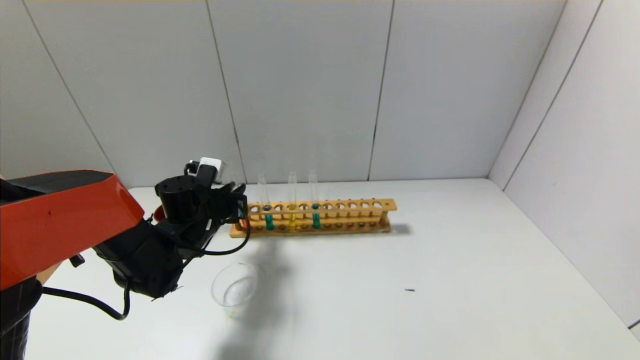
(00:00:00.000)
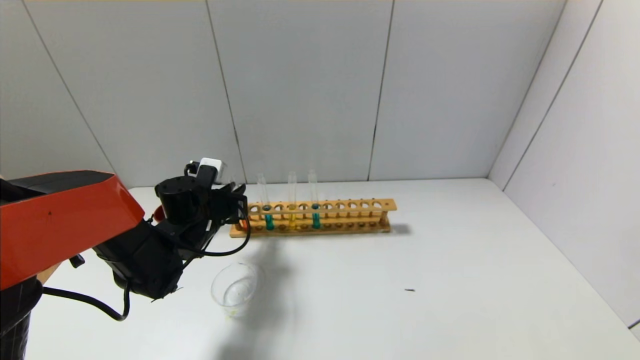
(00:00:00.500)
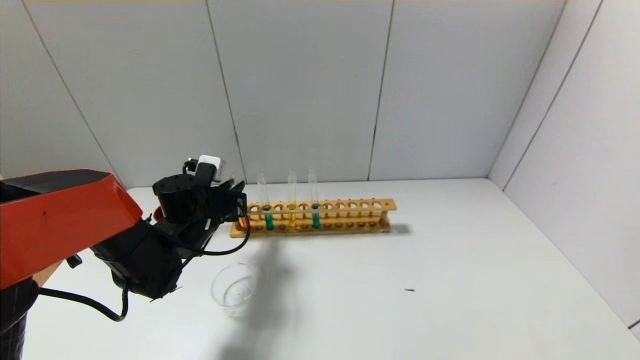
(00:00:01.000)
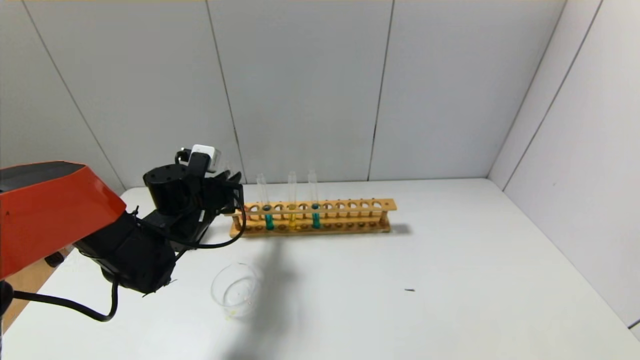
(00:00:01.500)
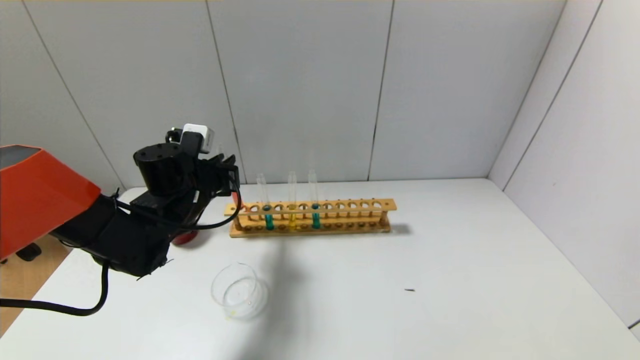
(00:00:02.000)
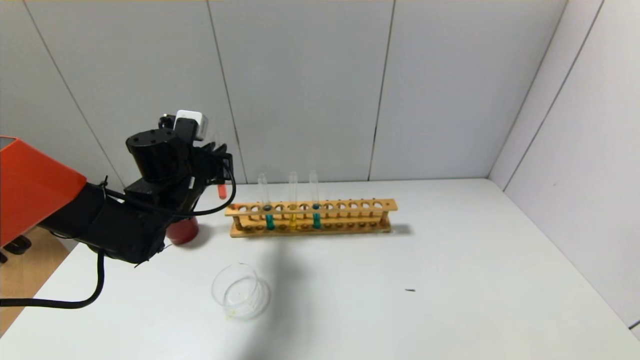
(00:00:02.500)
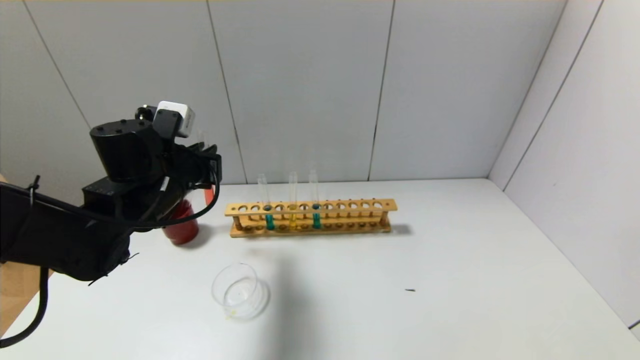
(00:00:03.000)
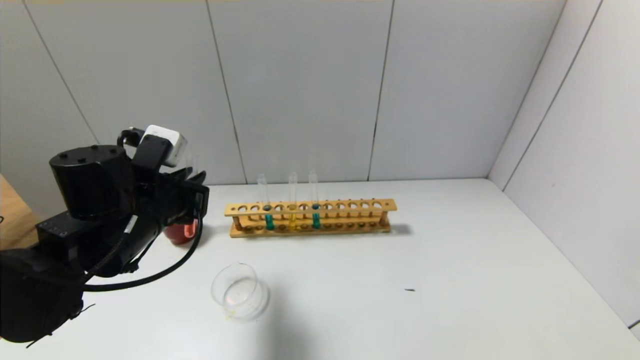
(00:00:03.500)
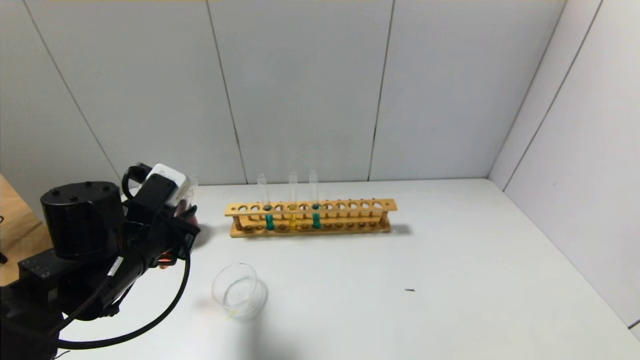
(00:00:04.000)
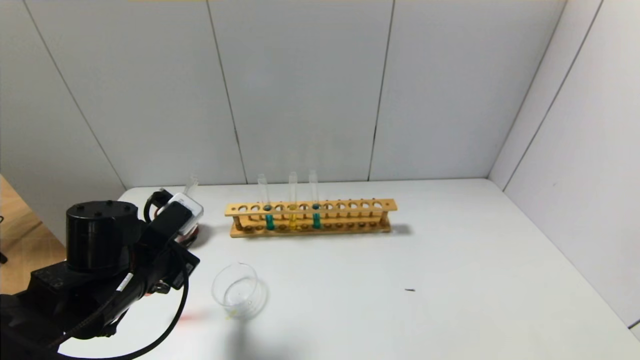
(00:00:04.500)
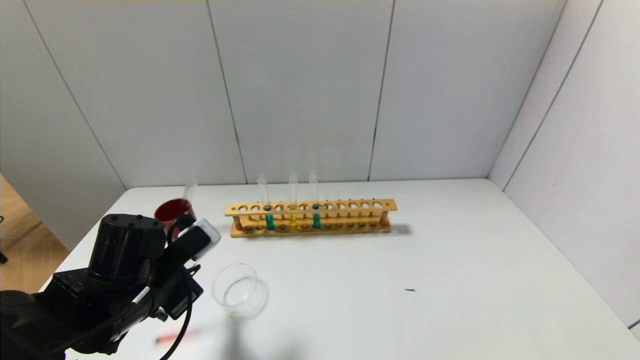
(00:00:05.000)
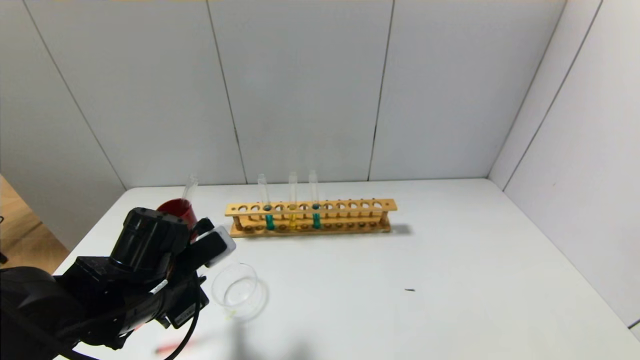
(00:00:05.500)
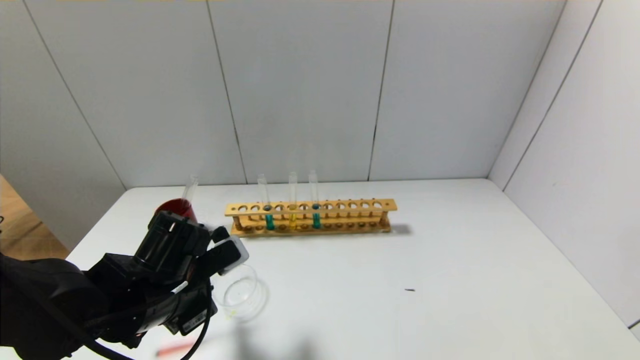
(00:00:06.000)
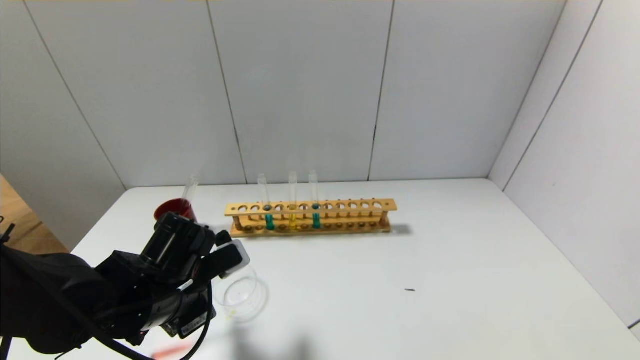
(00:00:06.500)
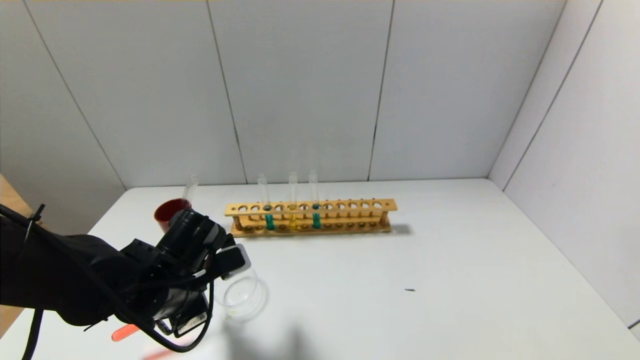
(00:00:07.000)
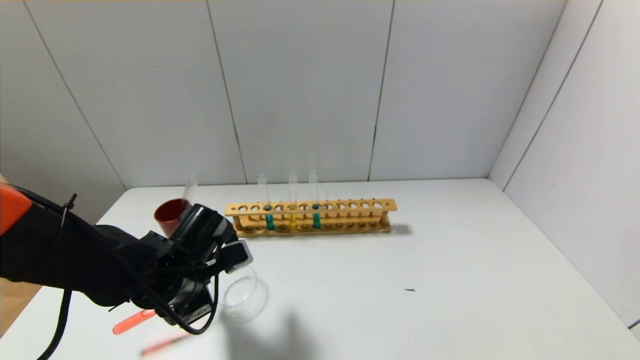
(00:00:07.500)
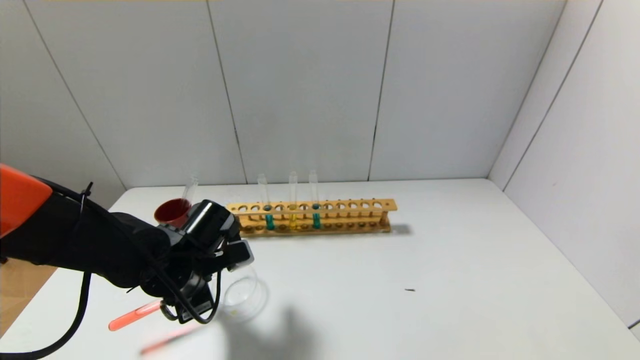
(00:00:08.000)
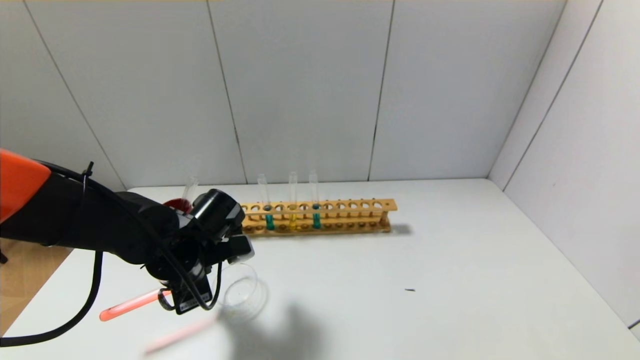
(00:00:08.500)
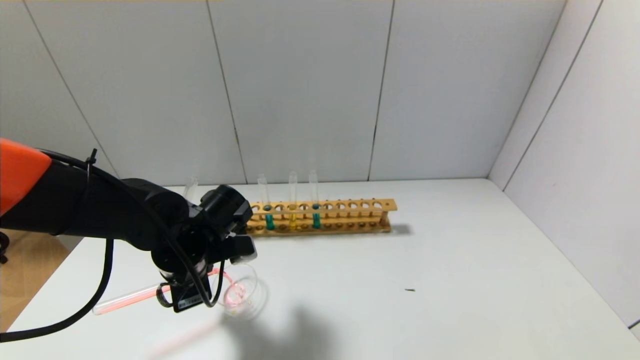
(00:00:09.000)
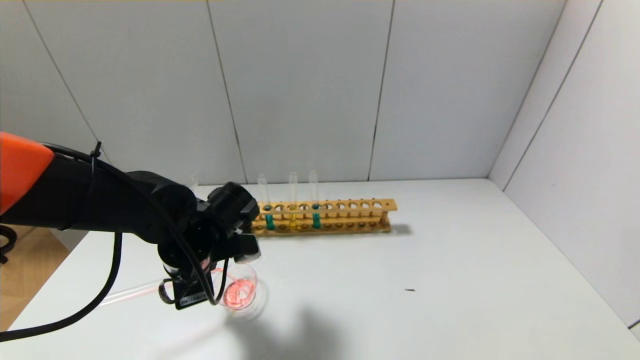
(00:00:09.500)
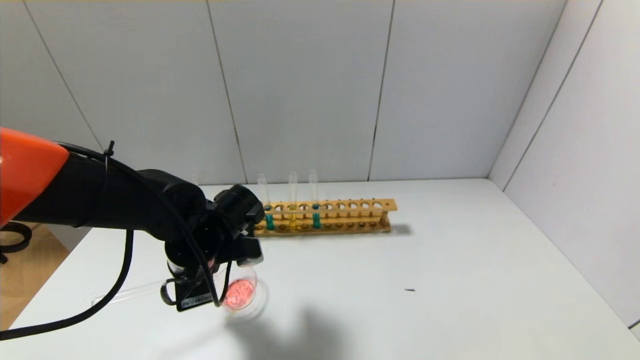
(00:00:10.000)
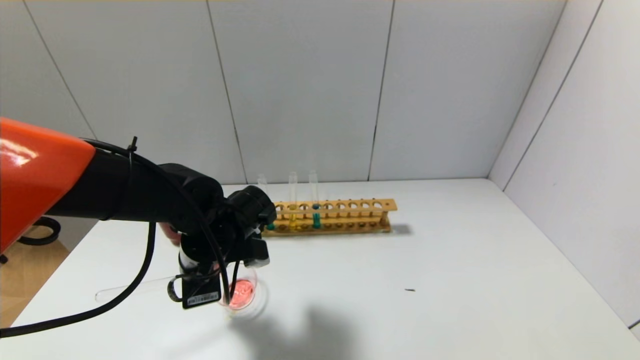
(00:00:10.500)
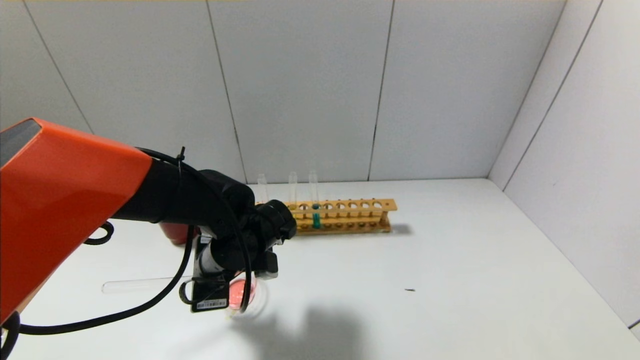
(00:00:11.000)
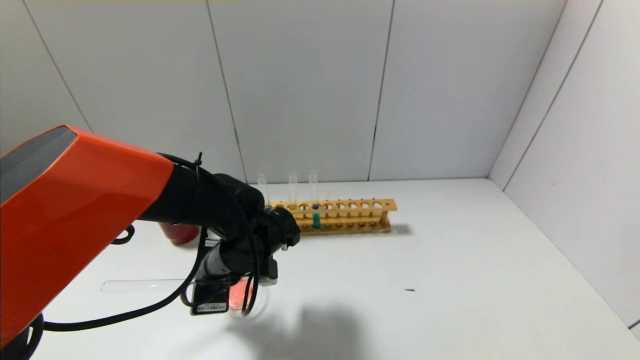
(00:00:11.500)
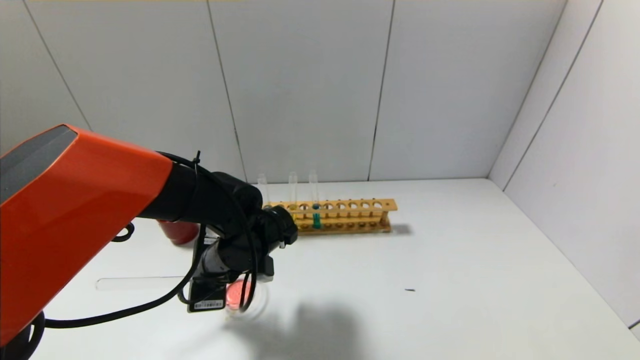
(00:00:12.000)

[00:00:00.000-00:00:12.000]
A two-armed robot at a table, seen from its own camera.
00:00:00.000 to 00:00:02.000: The left gripper is displaced upward by some 5 cm.
00:00:02.000 to 00:00:04.000: The left gripper shifts roughly 15 cm backward.
00:00:04.000 to 00:00:06.000: The left gripper ends up roughly 5 cm from where it was.
00:00:06.000 to 00:00:08.000: The grippers stay close to where they were, moving slightly.
00:00:08.000 to 00:00:10.000: The grippers move only a little.
00:00:10.000 to 00:00:12.000: The grippers stay close to where they were, moving slightly.

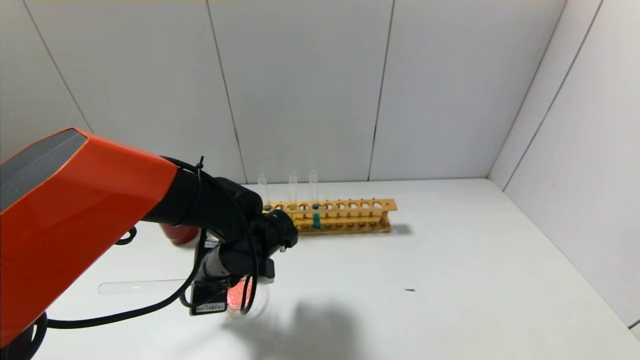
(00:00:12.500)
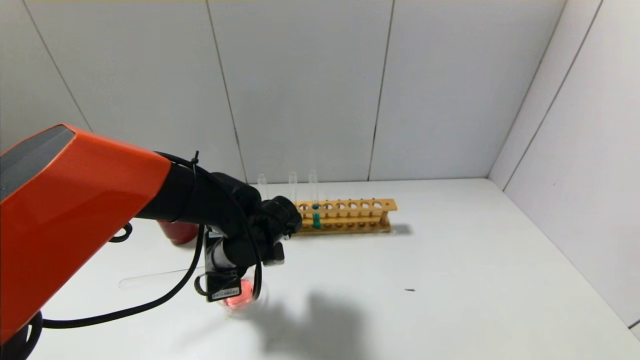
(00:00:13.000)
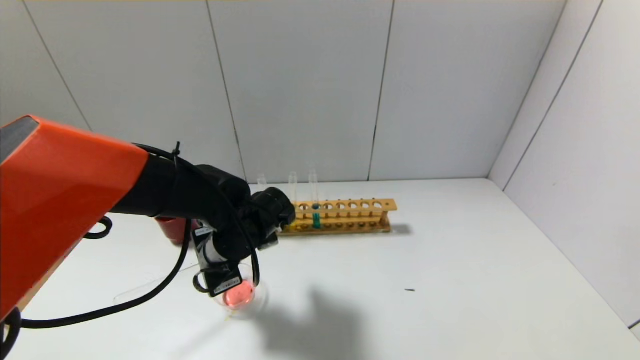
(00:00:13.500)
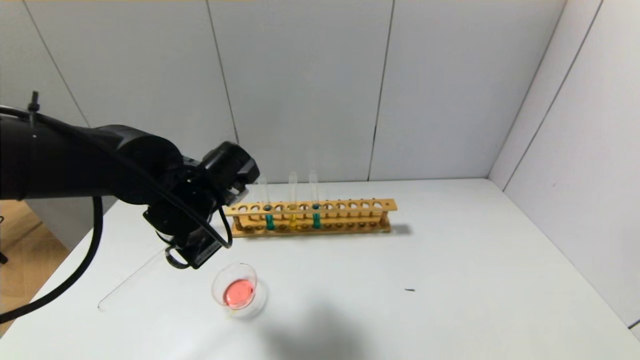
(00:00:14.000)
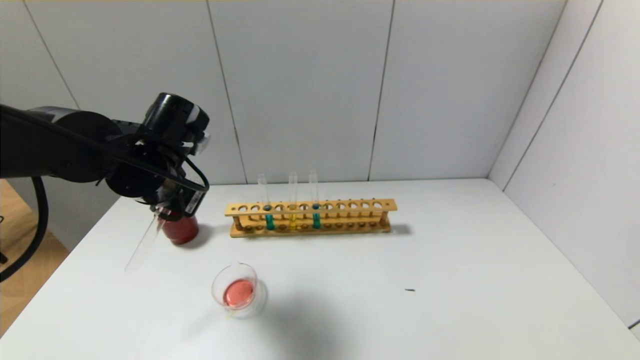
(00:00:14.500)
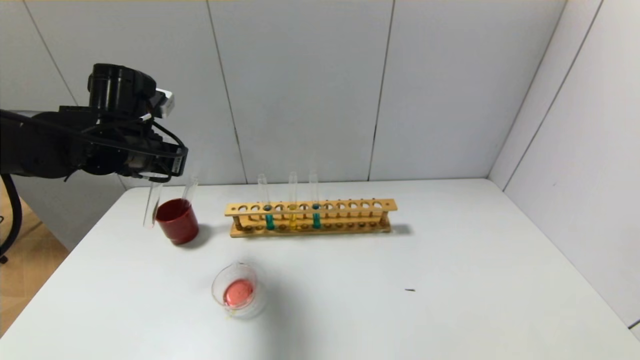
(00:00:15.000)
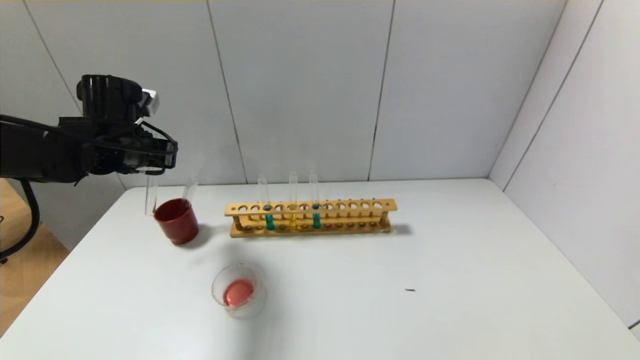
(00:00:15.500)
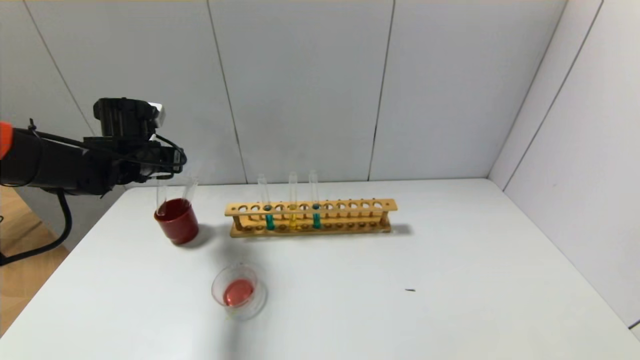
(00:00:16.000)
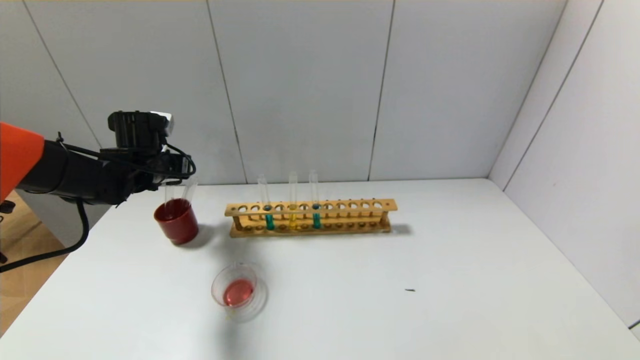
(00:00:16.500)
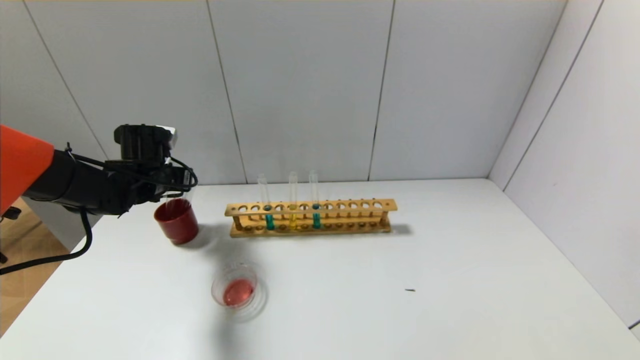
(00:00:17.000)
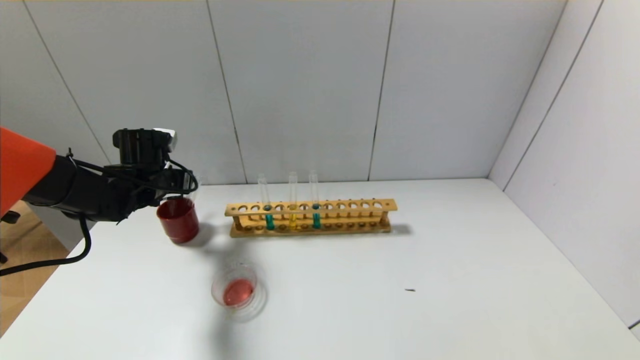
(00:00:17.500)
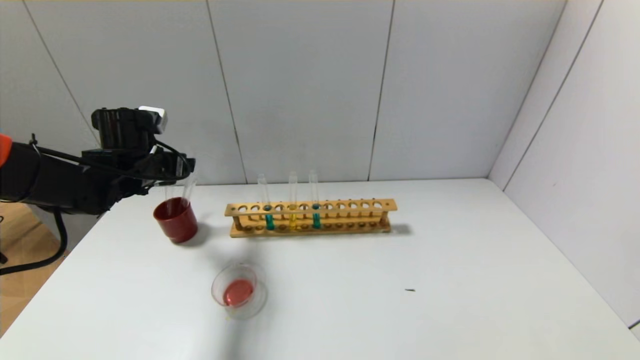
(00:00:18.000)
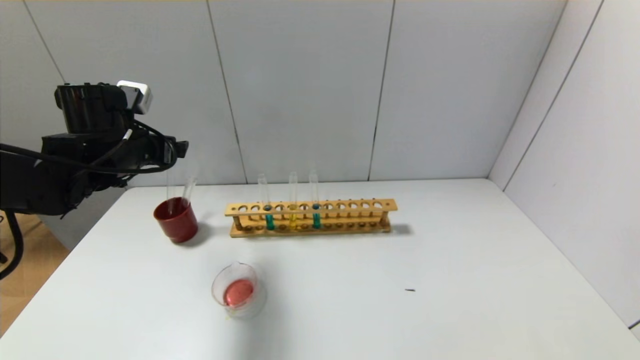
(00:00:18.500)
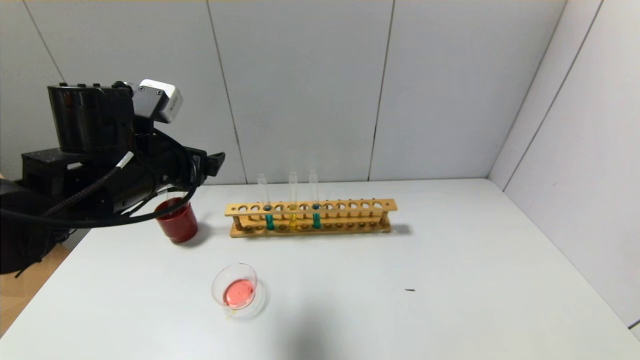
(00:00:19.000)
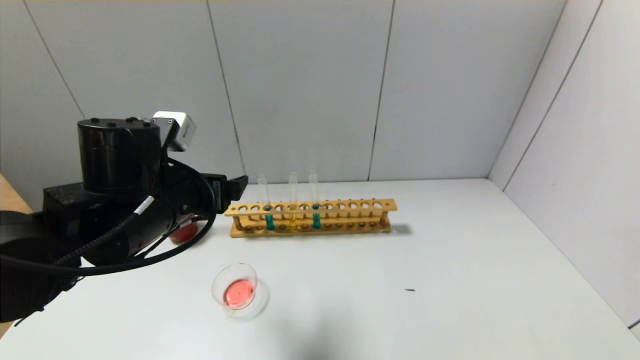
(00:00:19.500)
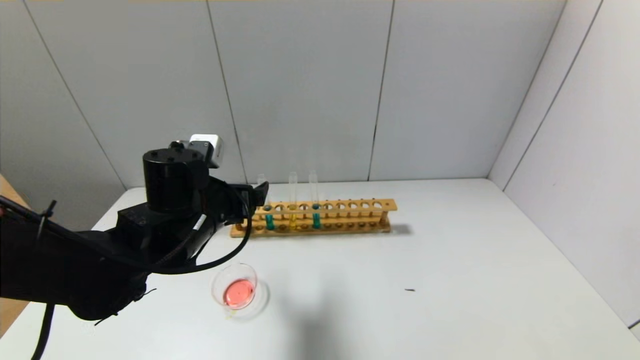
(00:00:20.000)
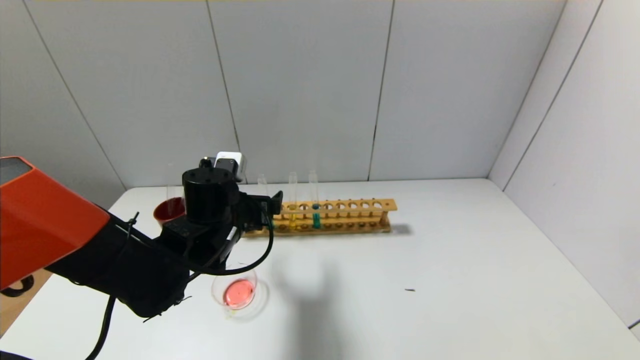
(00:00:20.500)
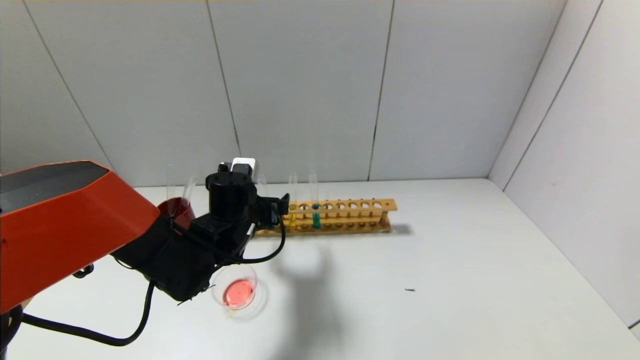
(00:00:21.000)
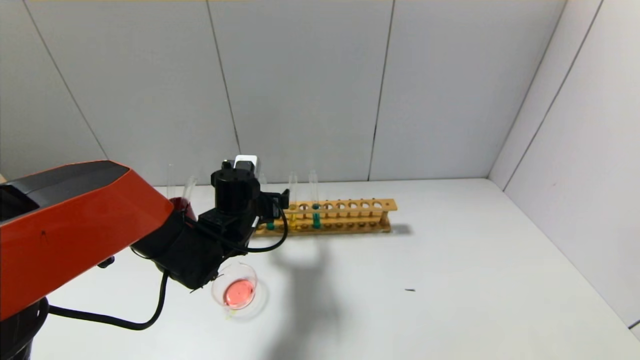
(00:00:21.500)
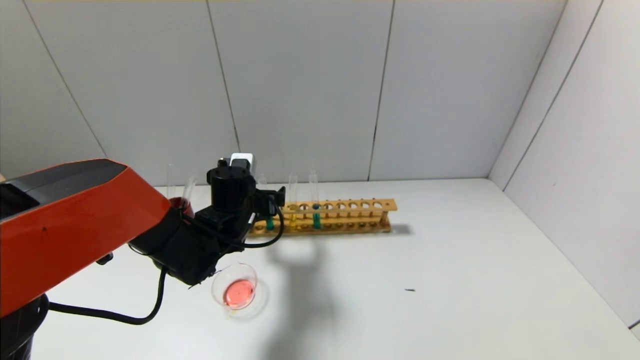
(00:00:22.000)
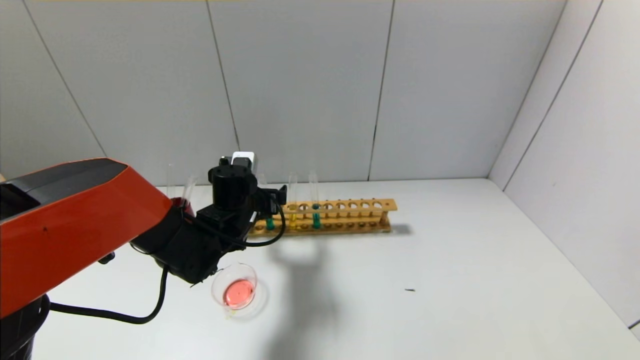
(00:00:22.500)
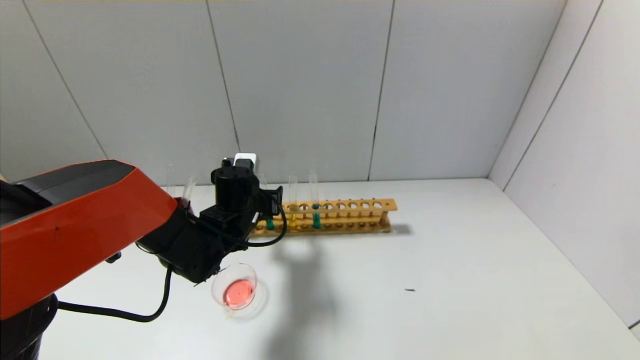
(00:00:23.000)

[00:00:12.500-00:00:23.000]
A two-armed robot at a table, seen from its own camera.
Step, 00:00:13.500 to 00:00:17.000: Place the test tube into the brown cup with the left gripper.
00:00:12.500 to 00:00:14.500: The left gripper shifts approximately 15 cm upward and to the left.
00:00:14.500 to 00:00:16.500: The left gripper moves forward, to the left and downward, about 15 cm.
00:00:16.500 to 00:00:19.000: The left gripper goes approximately 20 cm backward, to the right and upward, and opens up.
00:00:19.000 to 00:00:21.000: The left gripper goes some 15 cm downward, forward and to the right.
00:00:21.000 to 00:00:23.000: The left gripper closes its fingers.
